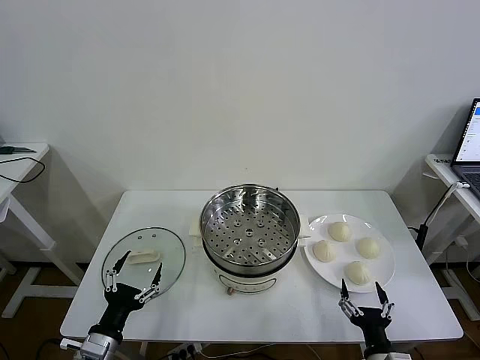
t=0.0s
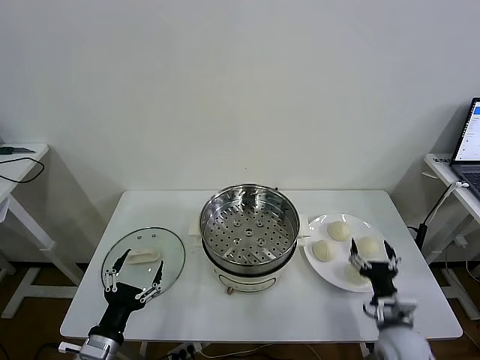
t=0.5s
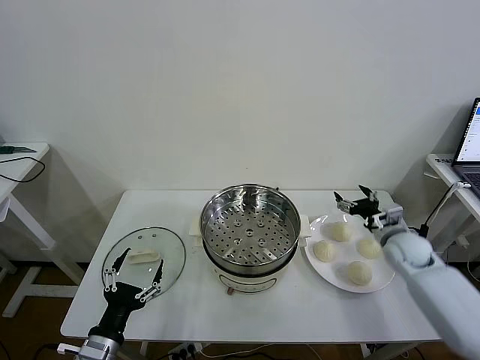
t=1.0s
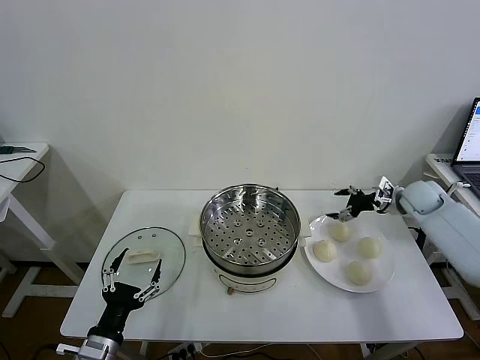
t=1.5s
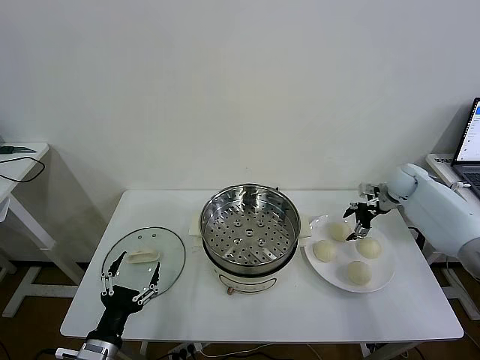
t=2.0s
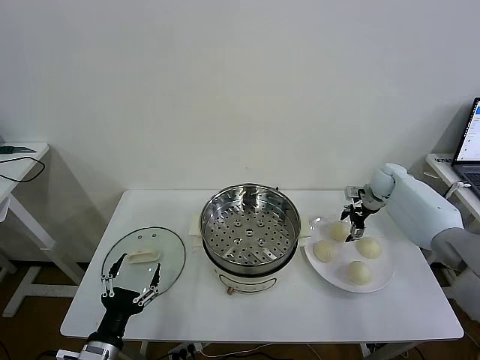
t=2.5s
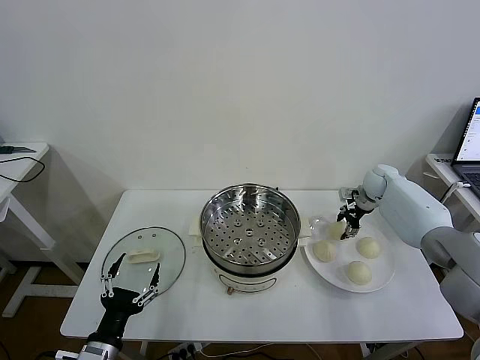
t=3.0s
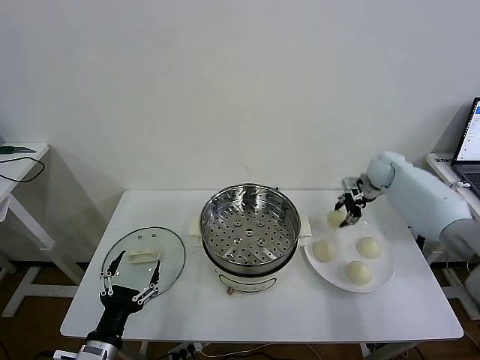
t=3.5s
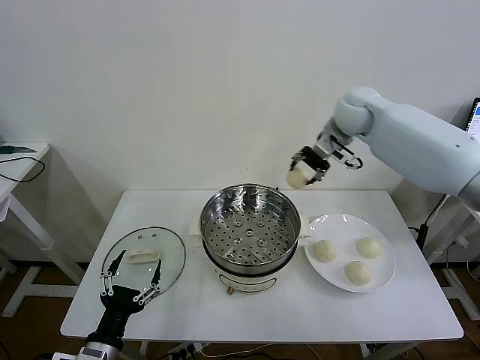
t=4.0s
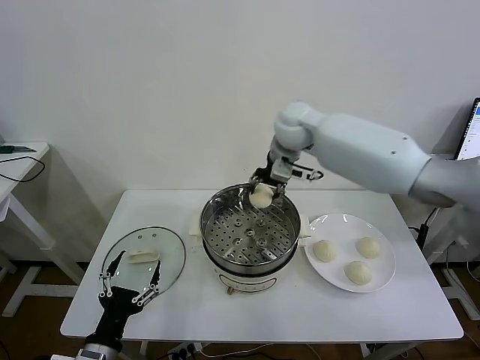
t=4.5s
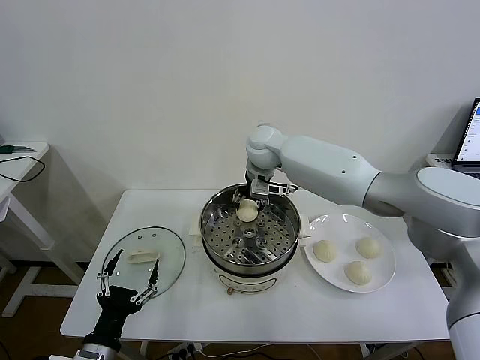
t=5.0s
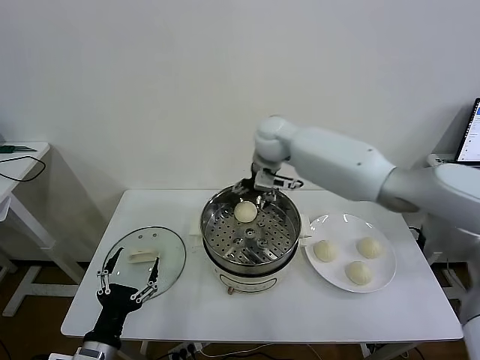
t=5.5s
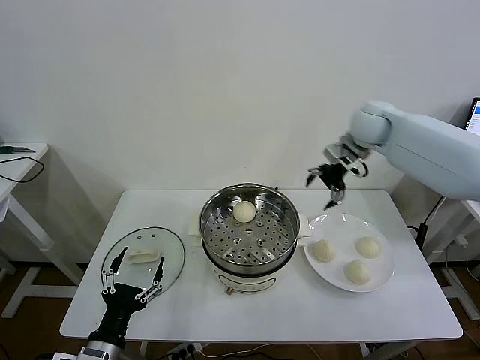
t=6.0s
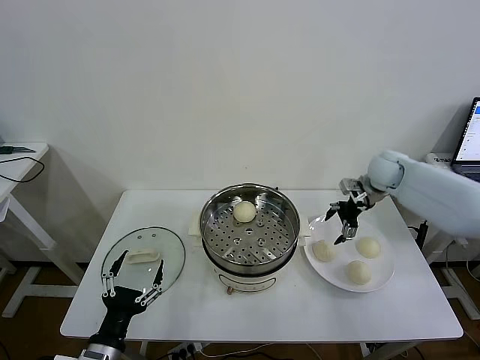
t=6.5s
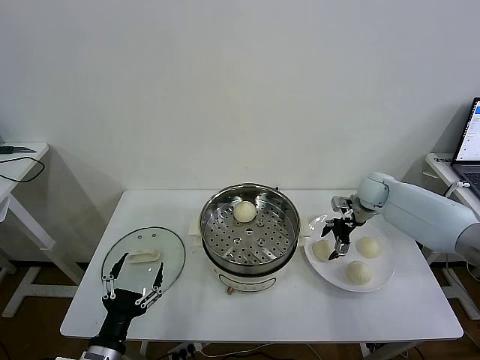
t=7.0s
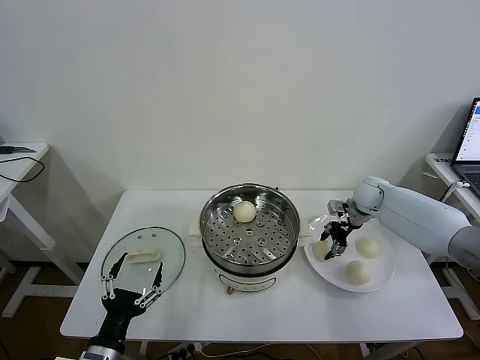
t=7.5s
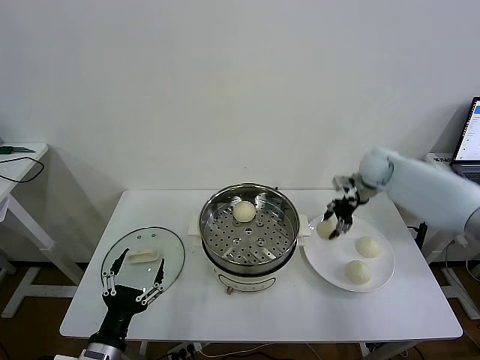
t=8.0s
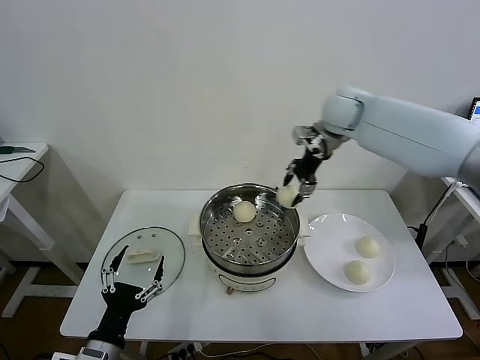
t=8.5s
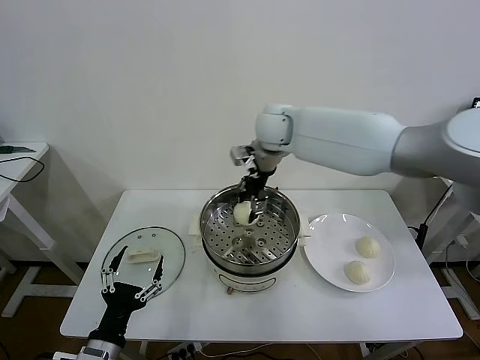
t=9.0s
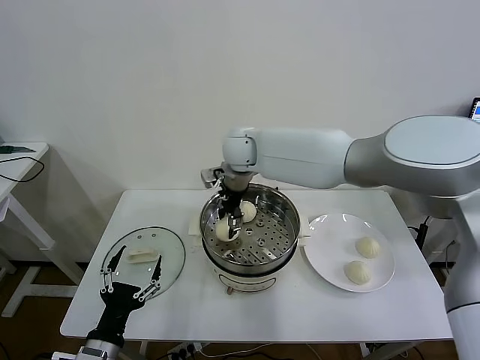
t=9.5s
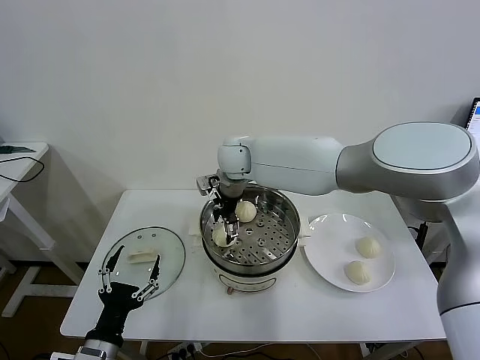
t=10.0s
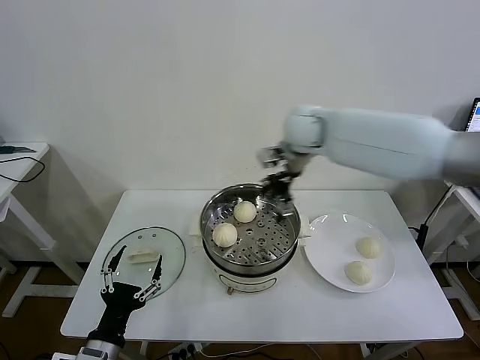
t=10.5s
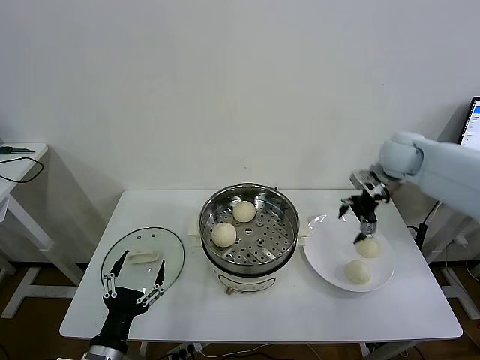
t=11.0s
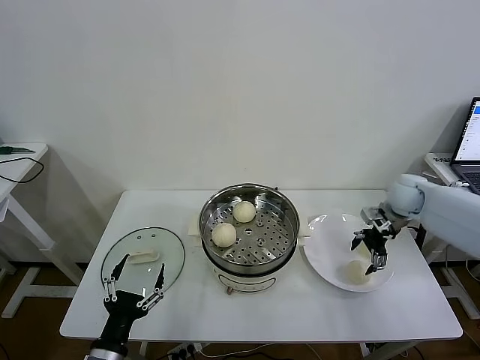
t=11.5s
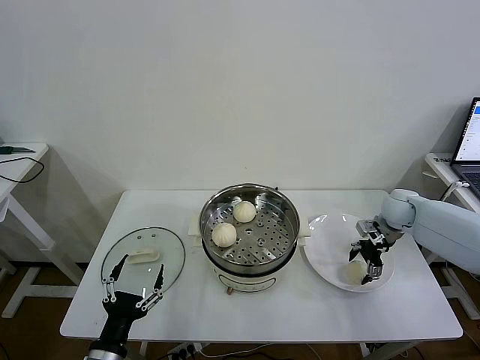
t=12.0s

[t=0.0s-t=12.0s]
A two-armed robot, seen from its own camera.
Task of the whole recording: take steamed baozi put them in steamer then cover it.
Step, t=0.0s to t=2.5s: Grasp the baozi in the plate with right gripper.
Step, t=3.0s to t=5.0s: Place the baozi on the steamer with right gripper.
Step, t=6.0s to t=7.5s: Grasp the baozi in the plate with right gripper.
Step, t=8.0s to t=10.0s: Place the baozi on the steamer with right gripper.
t=2.0s to t=4.0s: The right gripper travels upward and to the left by roughly 30 cm, and closes up.
t=4.0s to t=6.0s: The right gripper goes to the left and returns, some 15 cm each way, and opens up.
t=6.0s to t=8.0s: The right gripper heads downward, covering approximately 10 cm, and closes up.
t=8.0s to t=10.0s: The right gripper heads to the left, covering roughly 35 cm, and opens.
t=10.0s to t=12.0s: The right gripper travels to the right by approximately 40 cm.

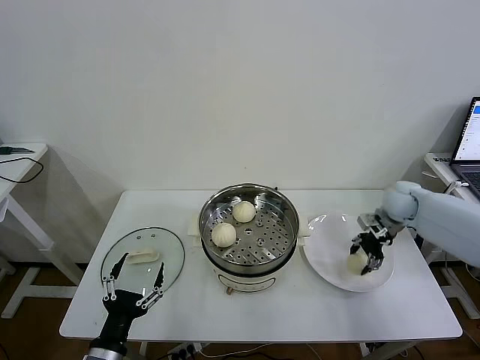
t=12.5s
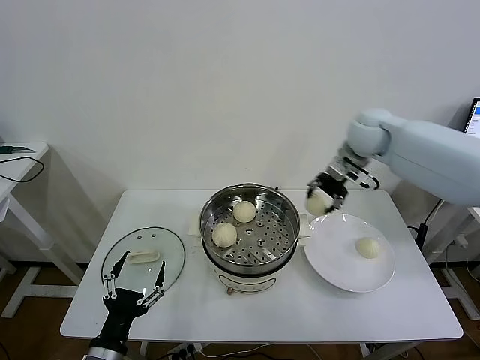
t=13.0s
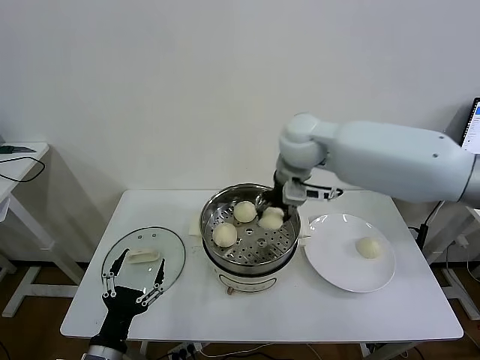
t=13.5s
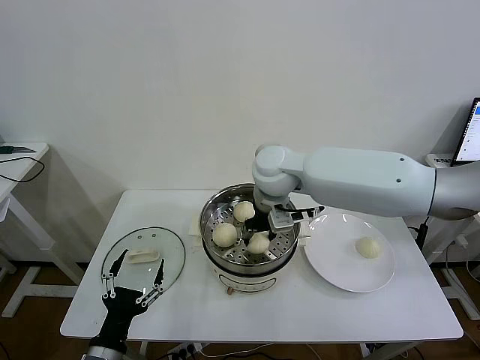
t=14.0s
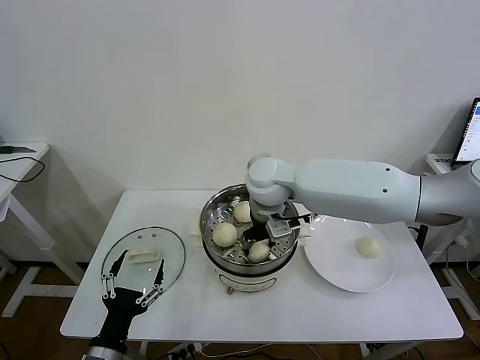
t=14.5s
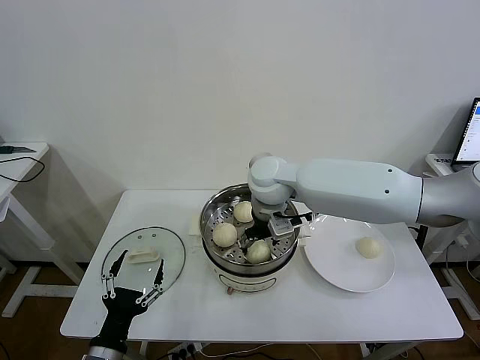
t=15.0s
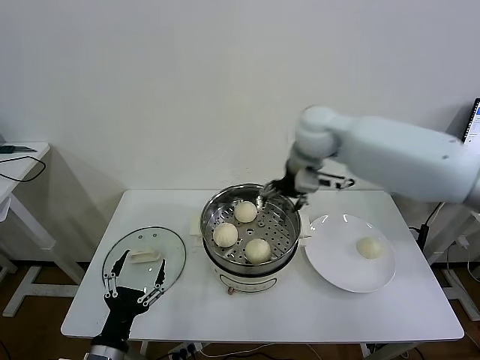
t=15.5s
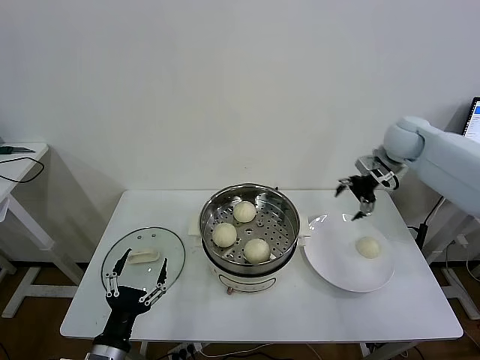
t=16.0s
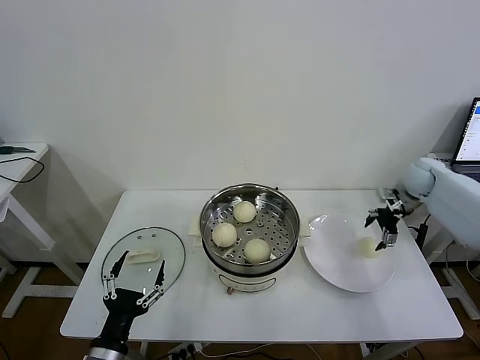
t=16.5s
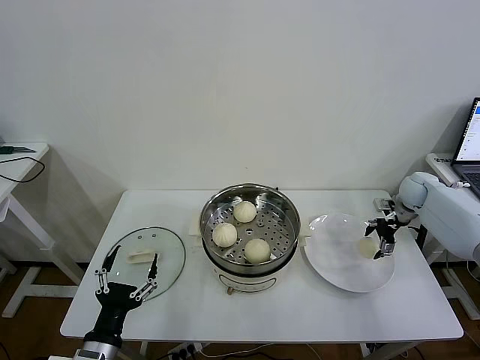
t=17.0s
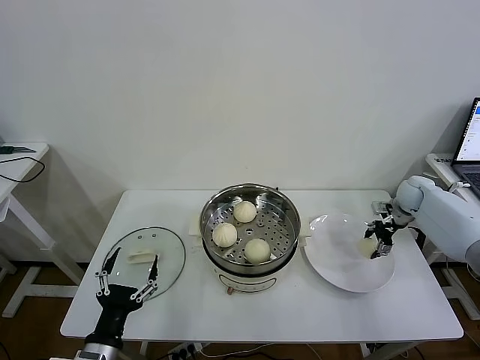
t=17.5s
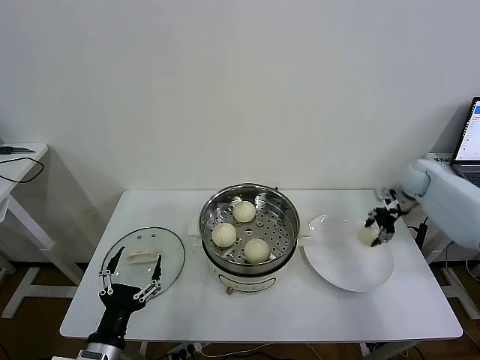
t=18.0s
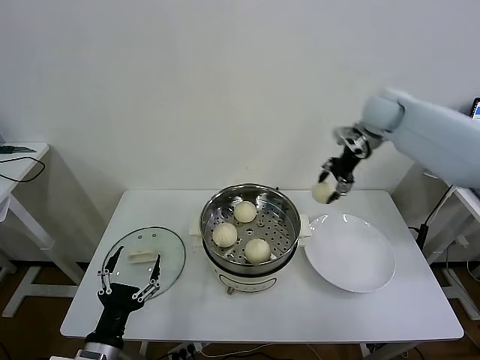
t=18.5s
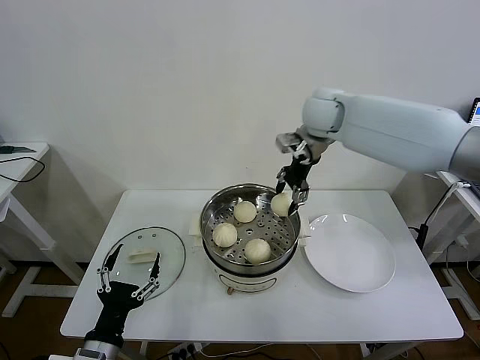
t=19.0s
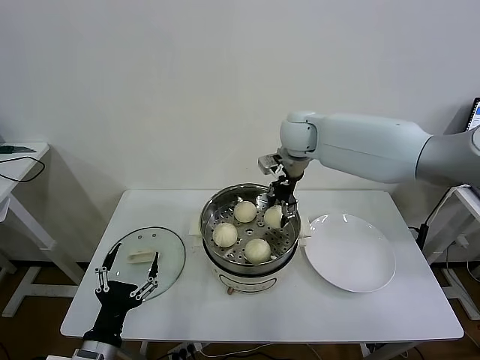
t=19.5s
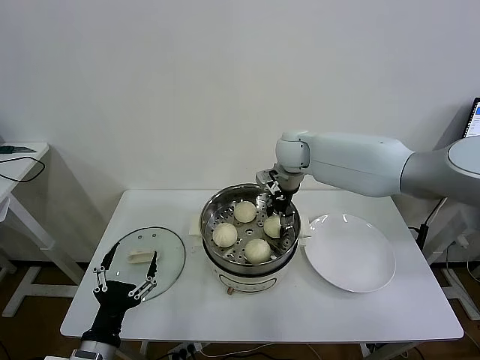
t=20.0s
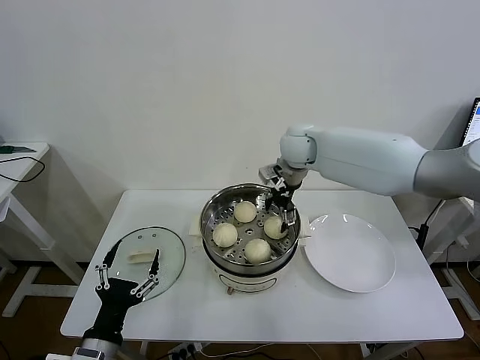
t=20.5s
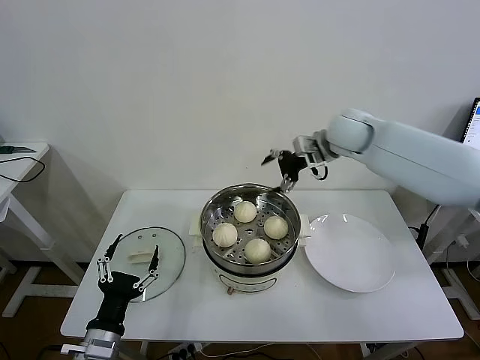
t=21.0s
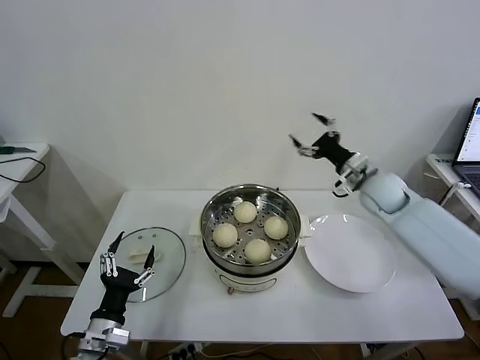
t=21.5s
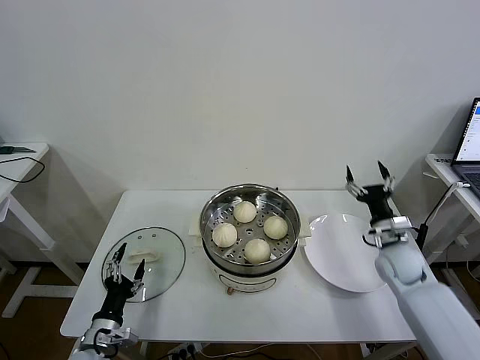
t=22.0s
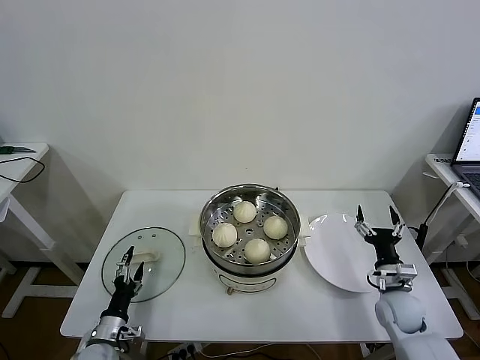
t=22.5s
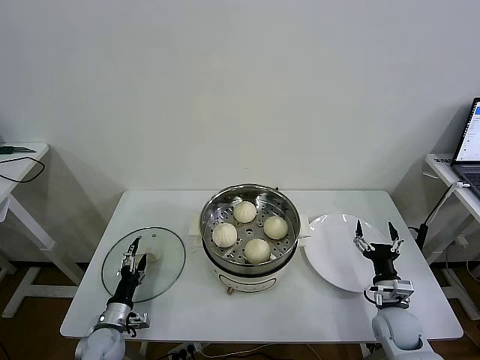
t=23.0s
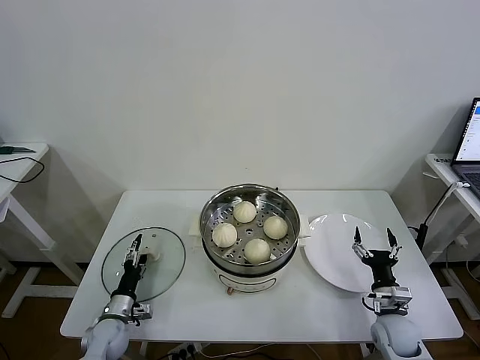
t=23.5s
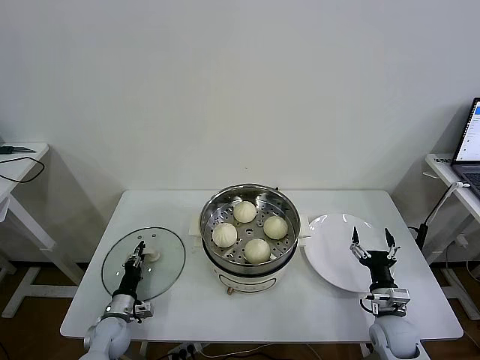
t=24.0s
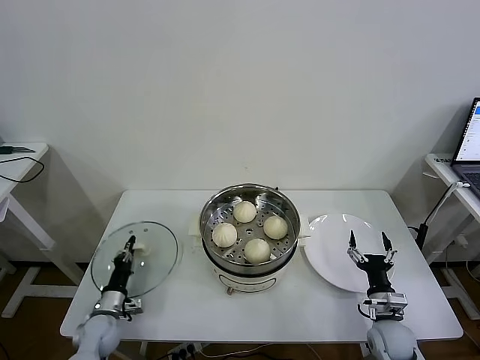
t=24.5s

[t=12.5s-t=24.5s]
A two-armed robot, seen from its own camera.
Task of the whole recording: take steamed baozi put them in steamer then cover it.
Step, t=12.5s to t=15.0s: Place the baozi on the steamer with right gripper.
Step, t=15.5s to t=17.5s: Grasp the baozi in the plate with right gripper.
Step, t=18.0s to t=20.0s: Place the baozi on the steamer with right gripper.
Step, t=20.5s to t=24.0s: Grasp the pot lid with left gripper.
t=12.5s to t=14.5s: The right gripper moves to the left, approximately 35 cm.
t=14.5s to t=16.5s: The right gripper goes approximately 40 cm to the right, and opens its fingers.
t=16.5s to t=18.5s: The right gripper shifts some 25 cm upward and to the left, and closes.
t=18.5s to t=20.5s: The right gripper heads to the left, covering about 20 cm, and opens up.
t=20.5s to t=22.5s: The left gripper travels downward, forward and to the left by about 20 cm. Meanwhile the right gripper shifts some 50 cm downward, backward and to the right.
t=22.5s to t=24.5s: The right gripper moves backward, approximately 5 cm, while the left gripper shifts roughly 5 cm forward, and closes its fingers.

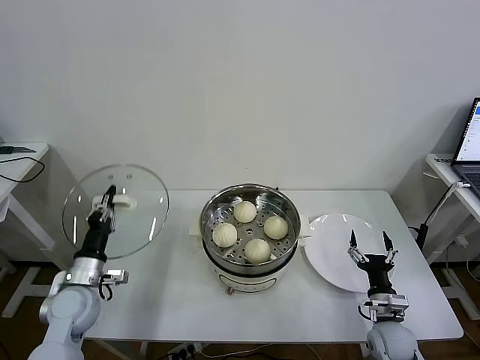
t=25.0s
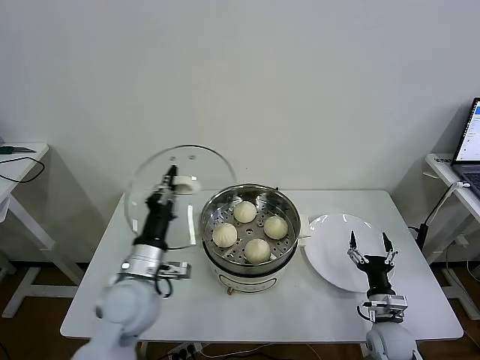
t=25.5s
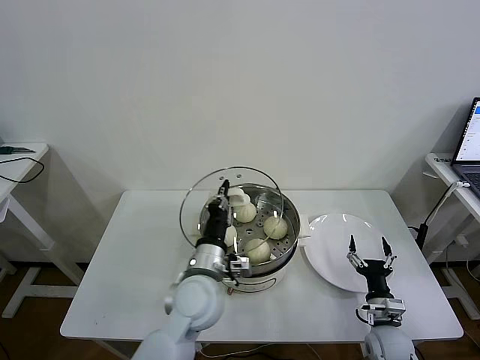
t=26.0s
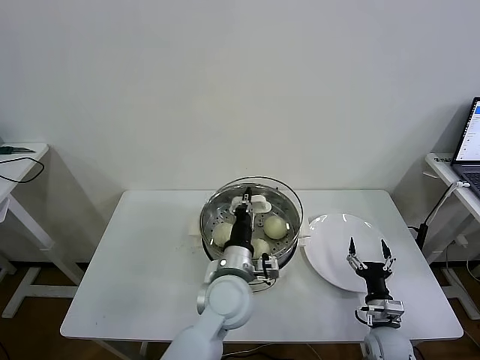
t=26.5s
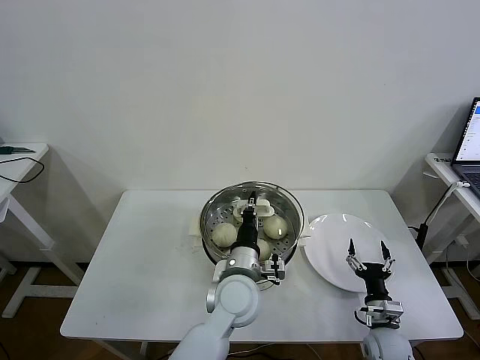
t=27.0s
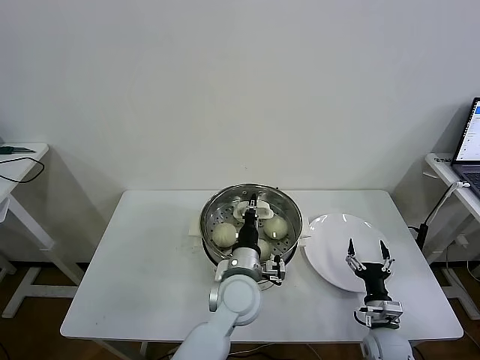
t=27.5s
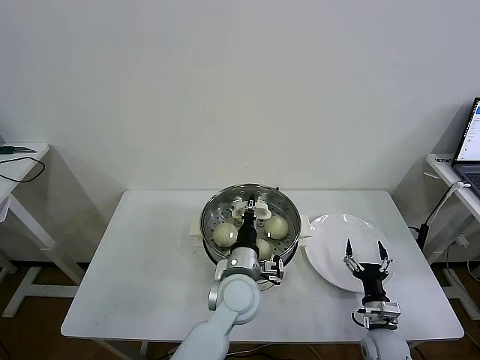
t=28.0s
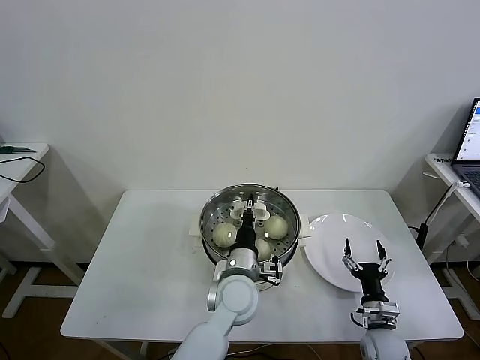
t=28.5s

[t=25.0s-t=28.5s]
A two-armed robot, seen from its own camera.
Task of the whole recording: take steamed baozi put them in steamer then cover it.
t=25.0s to t=27.0s: The left gripper shifts roughly 35 cm to the right.
t=27.0s to t=28.5s: The grippers make only small movements.
